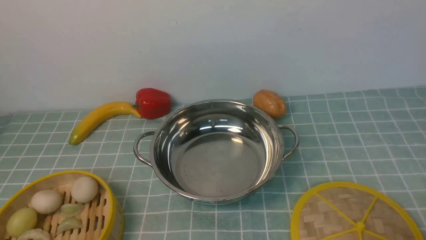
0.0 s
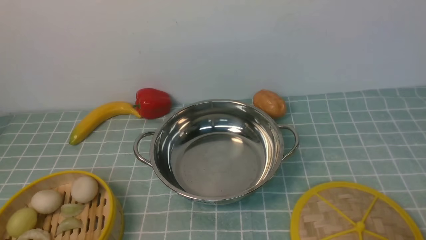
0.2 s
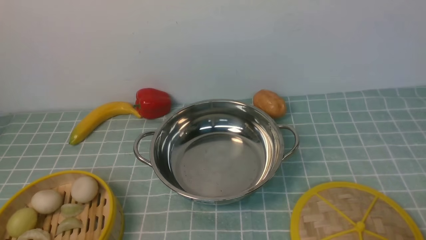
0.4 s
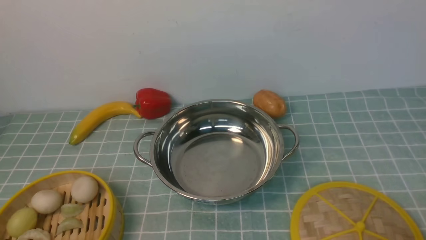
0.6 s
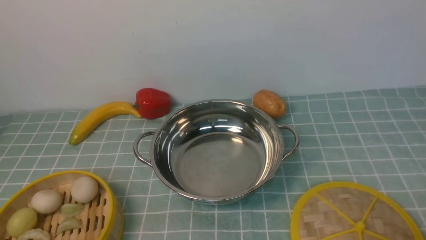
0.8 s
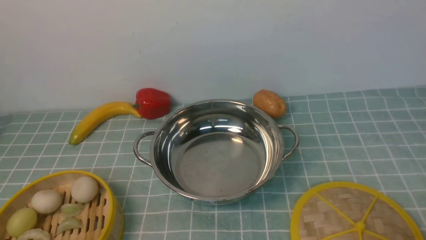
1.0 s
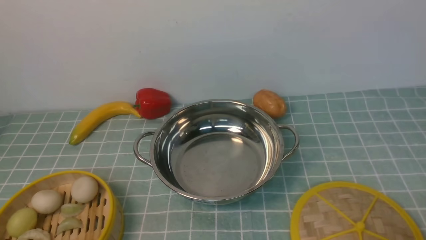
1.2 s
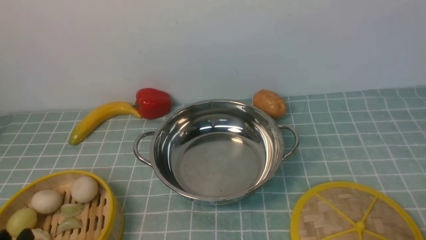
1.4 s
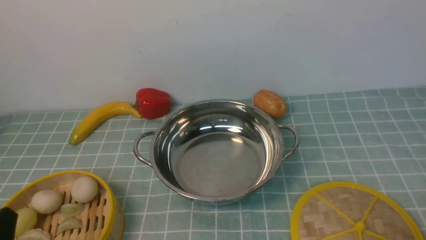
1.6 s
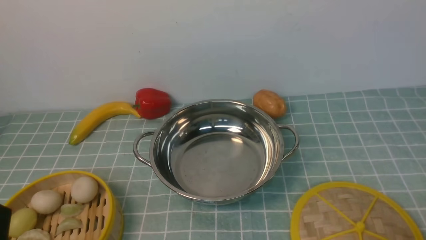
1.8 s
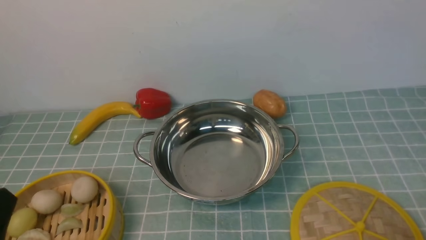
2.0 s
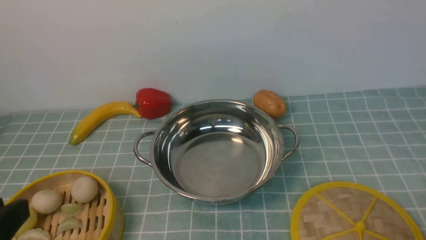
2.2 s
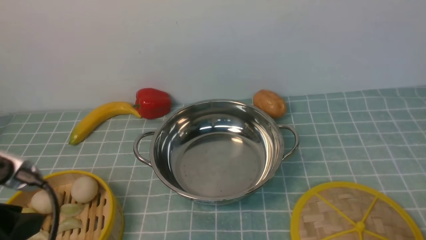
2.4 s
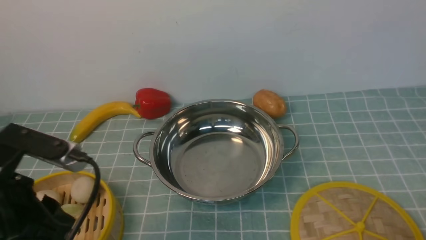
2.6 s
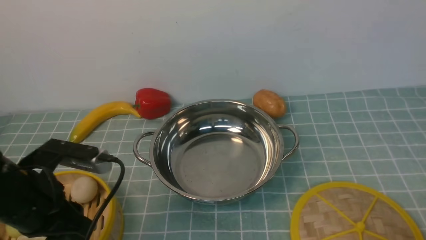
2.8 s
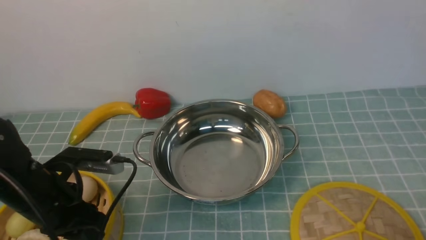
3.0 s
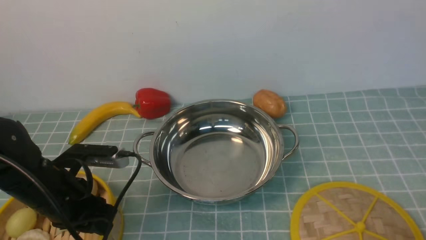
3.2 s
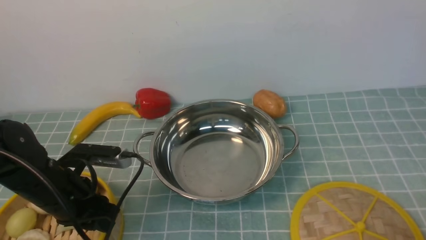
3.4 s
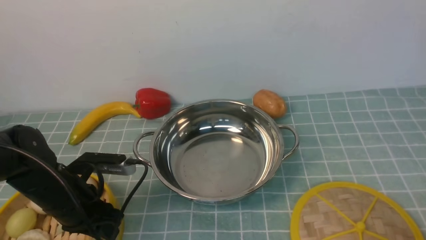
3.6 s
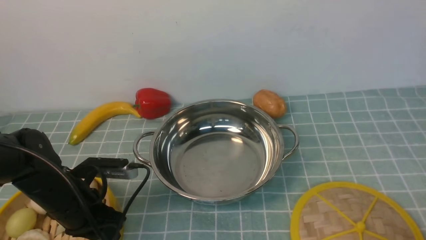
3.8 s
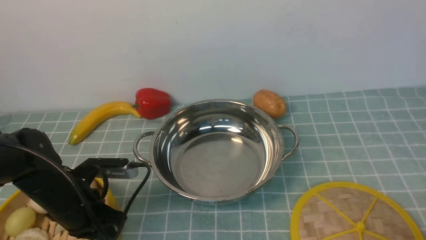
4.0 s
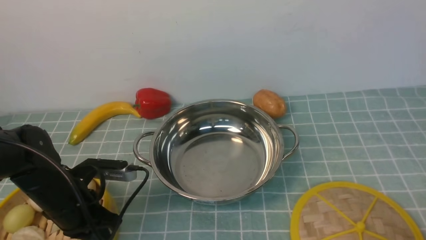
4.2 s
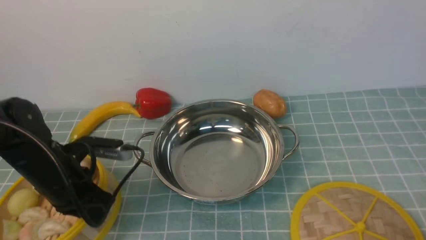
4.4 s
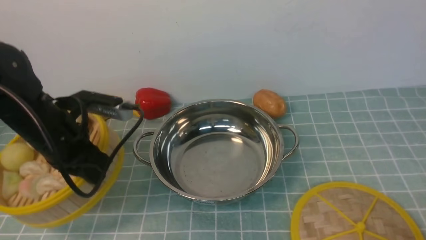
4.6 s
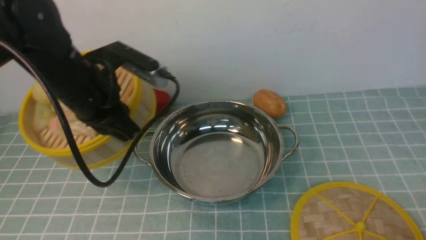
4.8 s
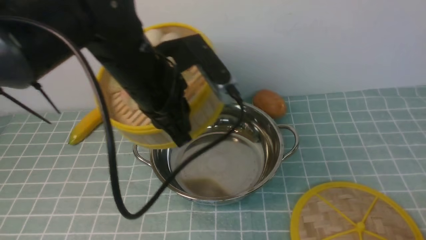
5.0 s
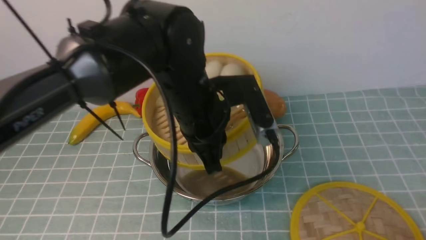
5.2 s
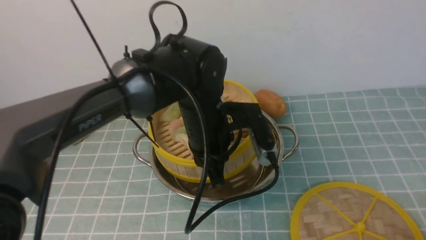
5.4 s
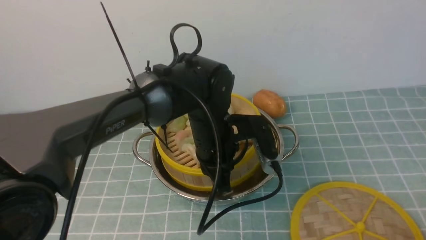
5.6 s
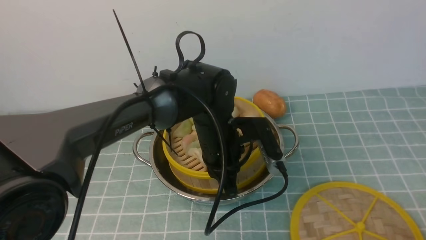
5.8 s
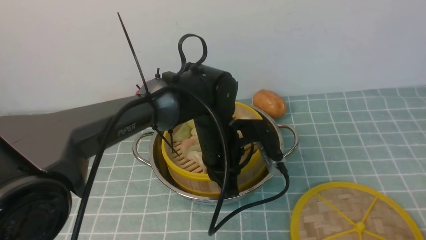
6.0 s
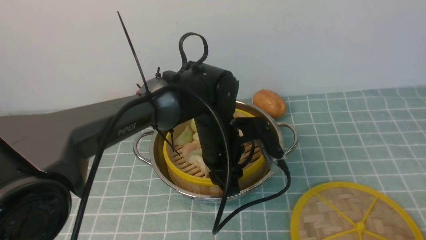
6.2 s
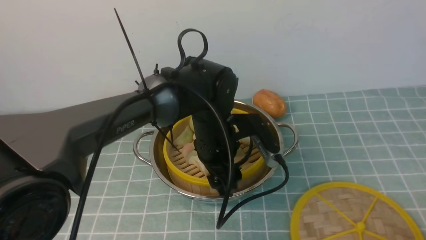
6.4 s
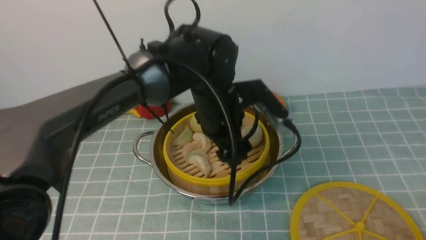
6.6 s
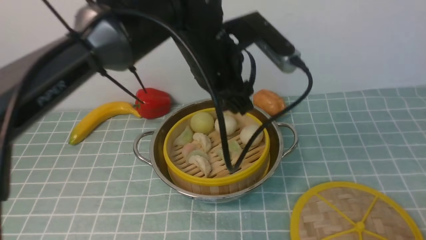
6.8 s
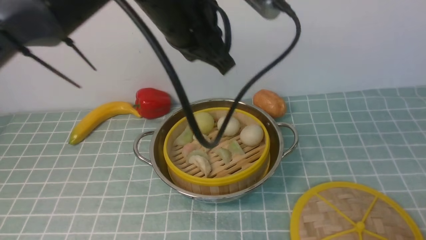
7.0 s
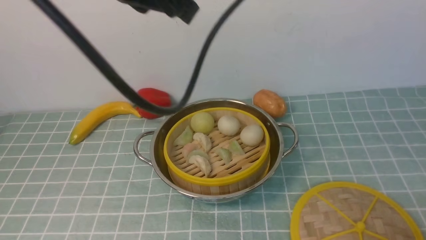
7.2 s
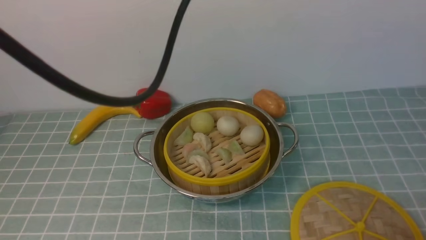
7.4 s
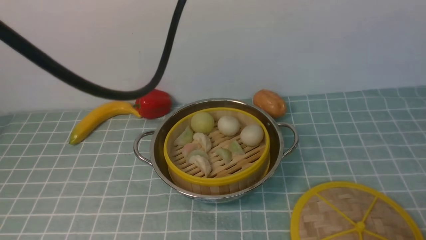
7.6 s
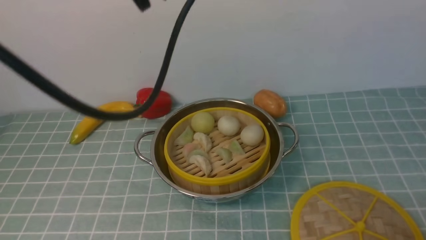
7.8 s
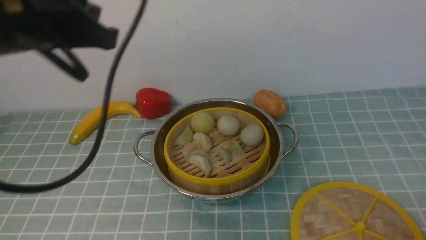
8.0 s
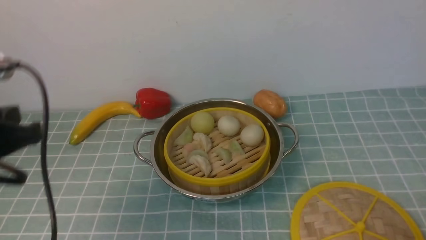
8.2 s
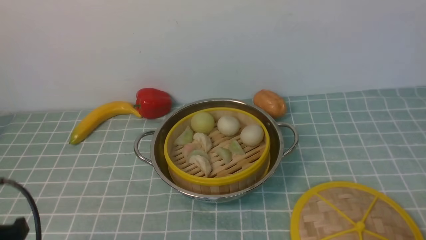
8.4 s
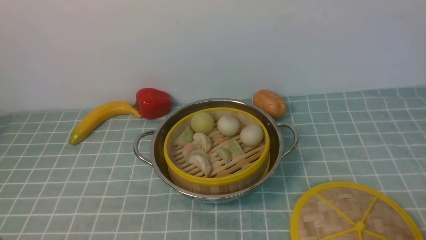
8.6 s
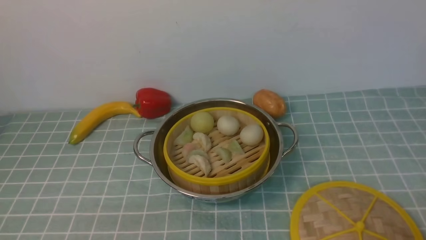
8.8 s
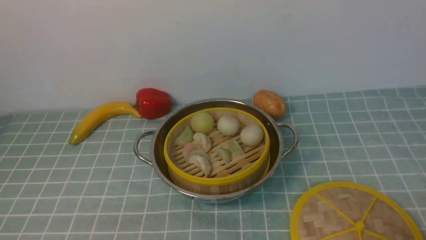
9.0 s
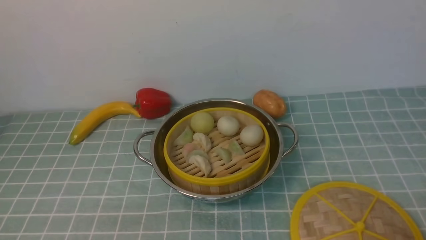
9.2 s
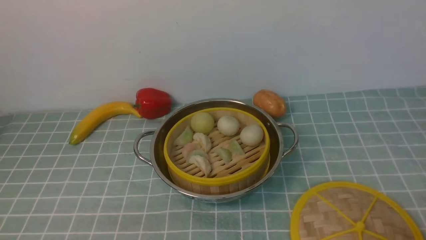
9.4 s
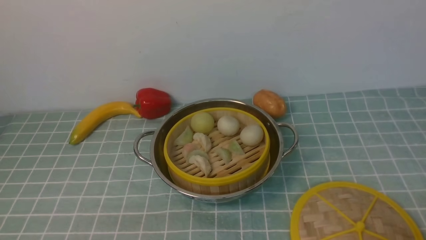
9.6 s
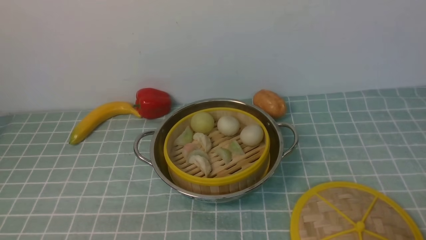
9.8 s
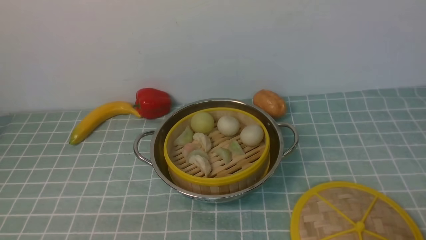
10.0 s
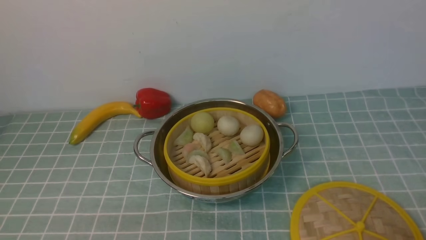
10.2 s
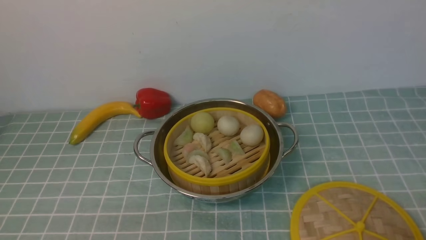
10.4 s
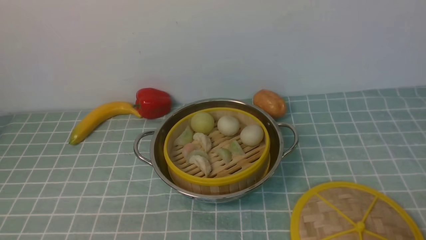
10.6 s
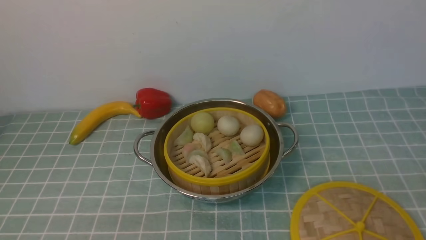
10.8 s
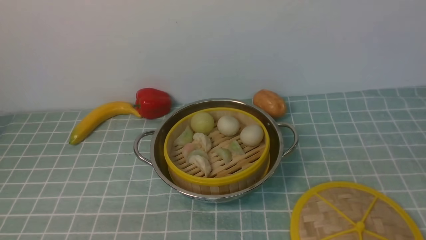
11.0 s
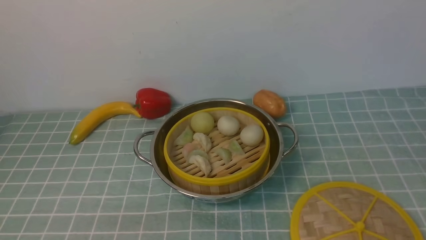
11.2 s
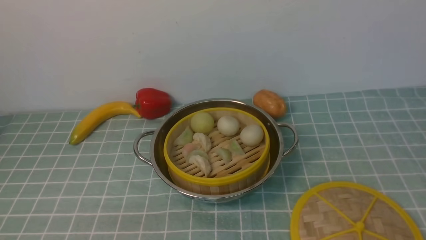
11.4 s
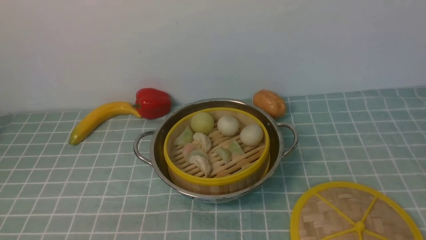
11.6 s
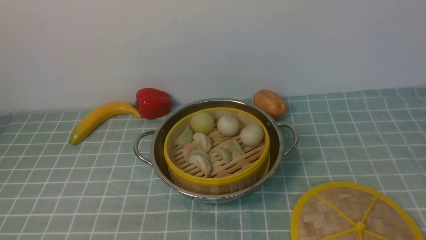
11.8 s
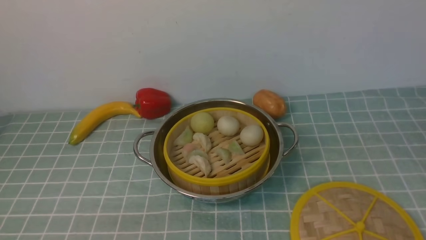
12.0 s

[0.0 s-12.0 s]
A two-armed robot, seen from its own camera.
Task of the whole recording: place the steamer in the pot on the blue tablecloth, and put the lid on the steamer.
Step, 0.0 to 4.8 s: use the left arm to lift the steamer closest to it.
Step, 5.0 to 6.6 s: use the left arm to put the steamer into the iron steamer pot in the middle.
1.6 to 3.0 s: The left gripper is displaced forward by some 15 cm.
3.0 to 4.4 s: The left gripper goes roughly 5 cm forward, and closes.
4.4 to 6.0 s: The left gripper shifts some 20 cm to the right.
6.0 to 7.6 s: The left gripper shifts approximately 30 cm upward, and closes up.
7.6 to 9.0 s: The left gripper is displaced downward, backward and to the left by approximately 40 cm.
9.0 to 10.4 s: Both grippers stay about where they are.

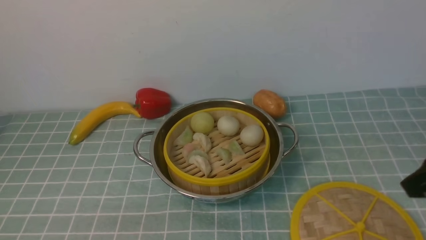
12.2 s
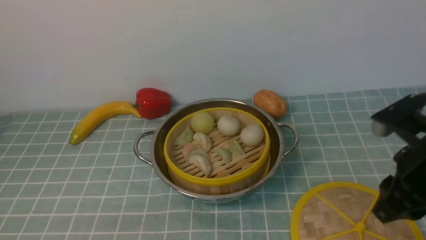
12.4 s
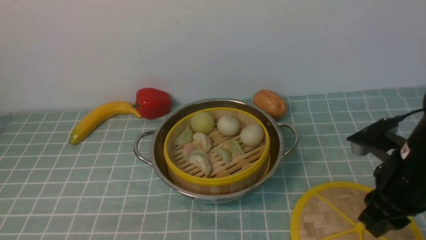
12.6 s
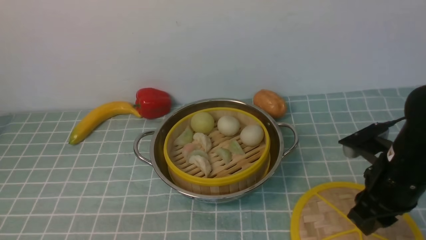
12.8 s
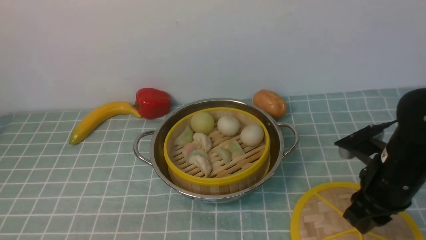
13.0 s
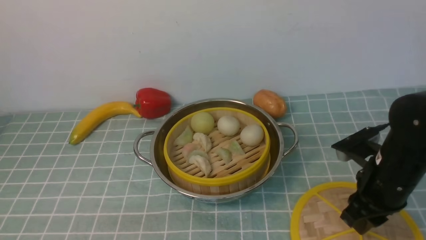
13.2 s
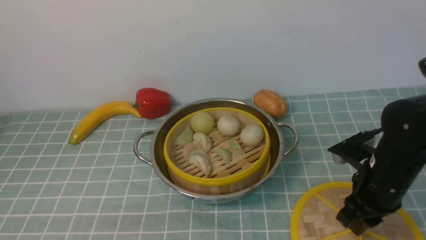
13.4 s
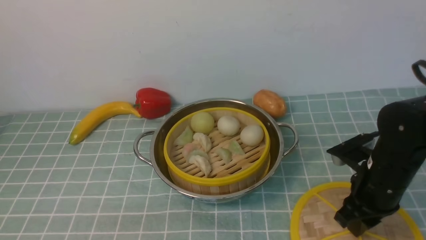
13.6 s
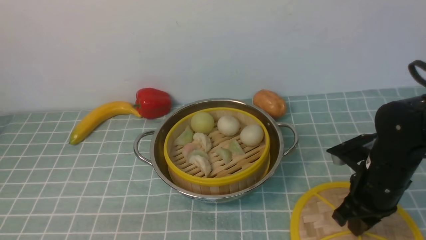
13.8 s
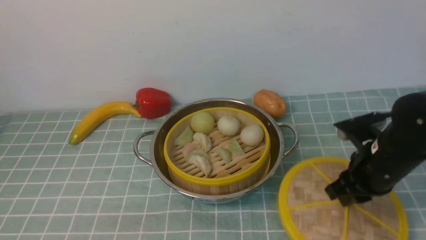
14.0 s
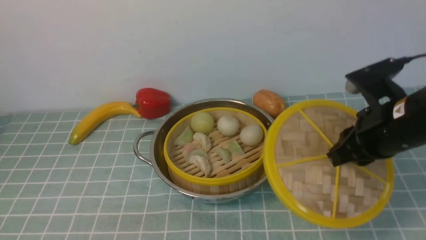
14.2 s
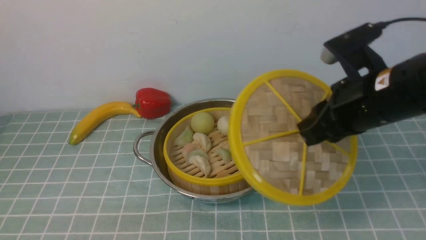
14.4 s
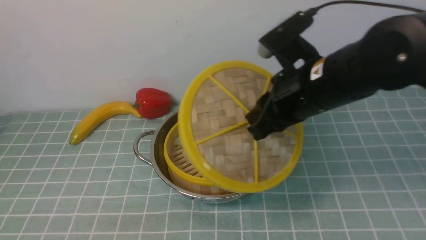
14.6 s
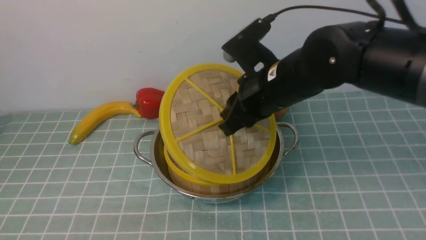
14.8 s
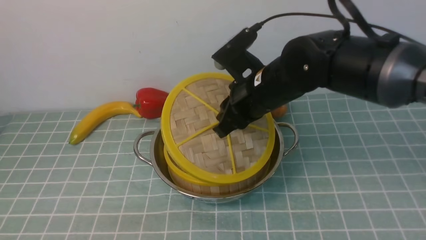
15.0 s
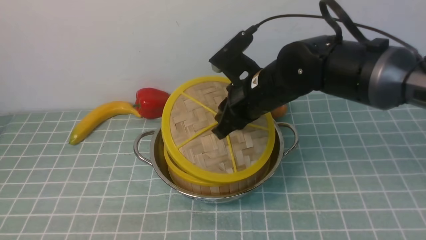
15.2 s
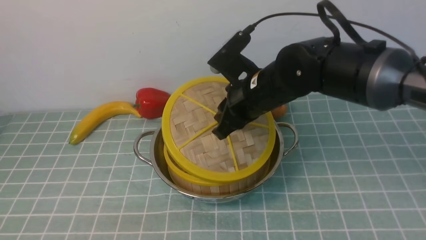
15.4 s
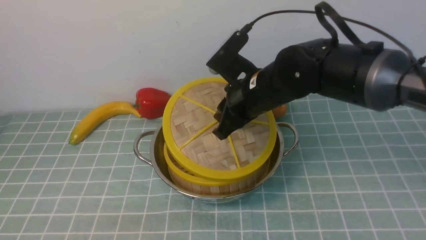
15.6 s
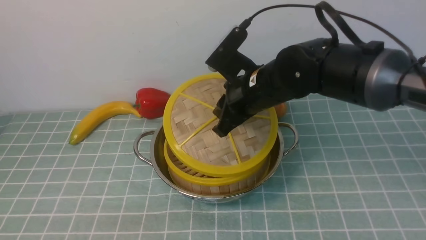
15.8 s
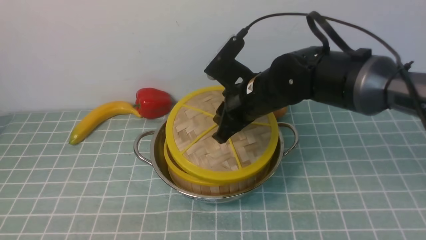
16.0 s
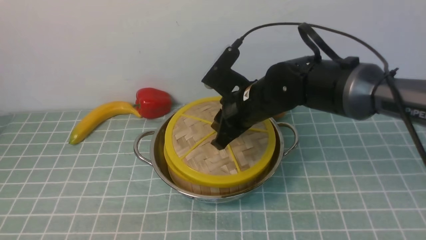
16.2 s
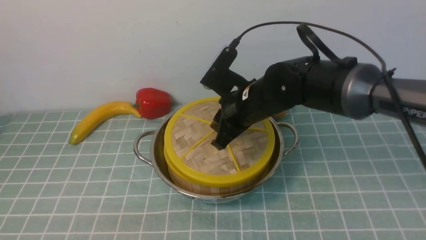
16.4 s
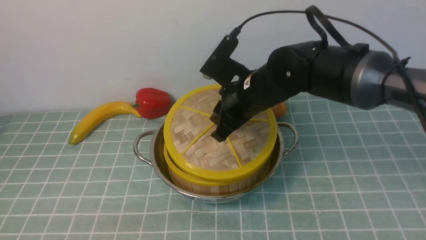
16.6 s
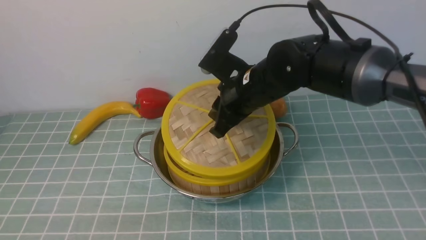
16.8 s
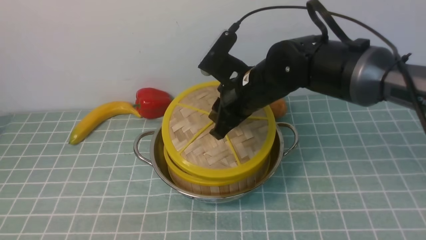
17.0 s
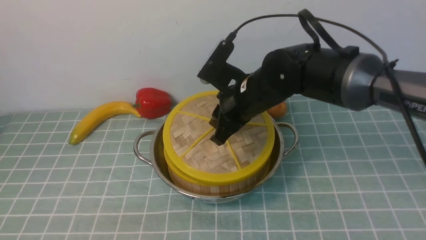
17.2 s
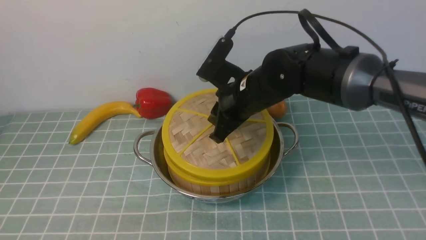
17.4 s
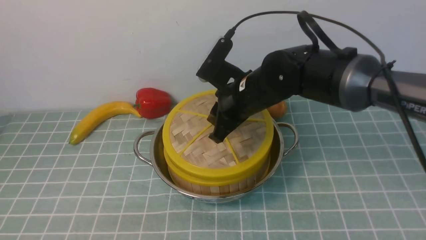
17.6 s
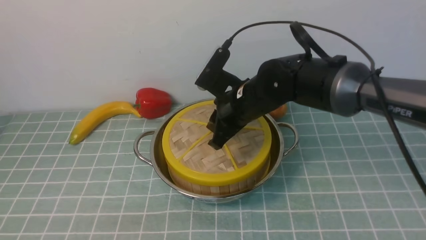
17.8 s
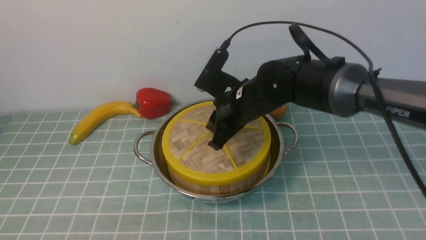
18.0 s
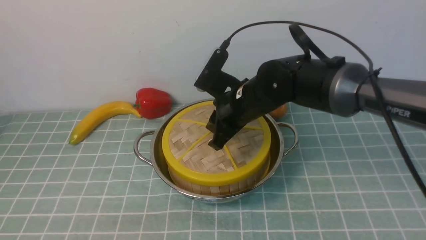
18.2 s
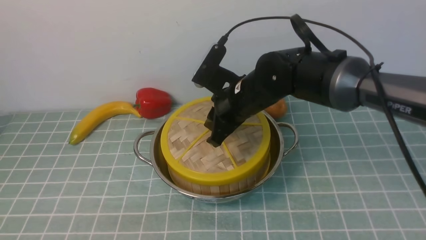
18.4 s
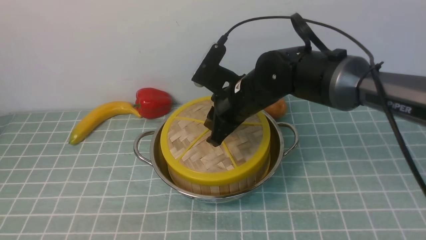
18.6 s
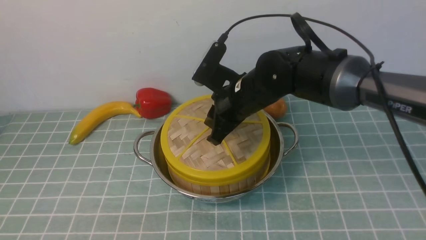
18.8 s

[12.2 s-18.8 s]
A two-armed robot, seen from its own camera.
Task of the whole recording: place the steamer in the pot on the blue tablecloth, and put the lid on the steamer.
Step, 12.2 to 14.2 s: use the right arm to lift the lid of the steamer.
12.2 to 13.8 s: The right gripper shifts some 15 cm downward and forward.
13.8 to 15.4 s: The right gripper travels to the left, forward and upward by about 20 cm.
15.4 to 18.8 s: There are only small adjustments of the grippers.
